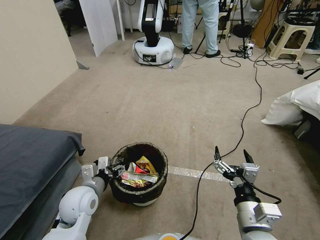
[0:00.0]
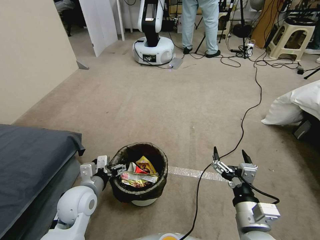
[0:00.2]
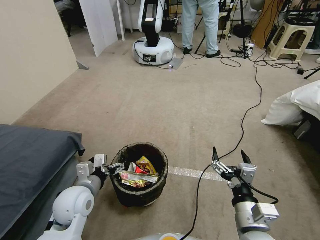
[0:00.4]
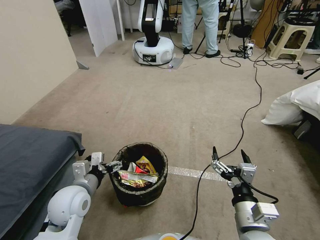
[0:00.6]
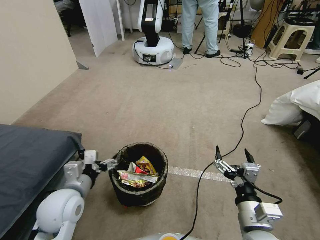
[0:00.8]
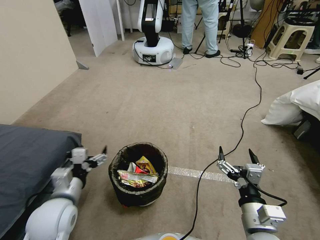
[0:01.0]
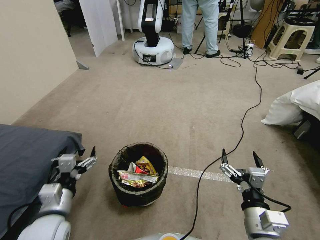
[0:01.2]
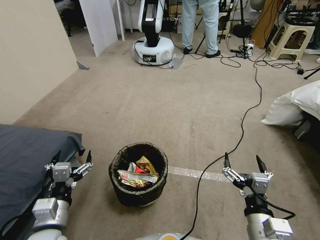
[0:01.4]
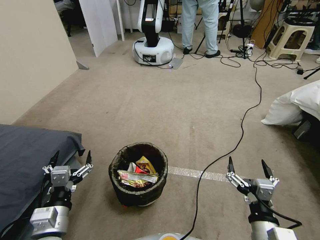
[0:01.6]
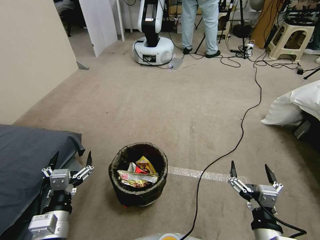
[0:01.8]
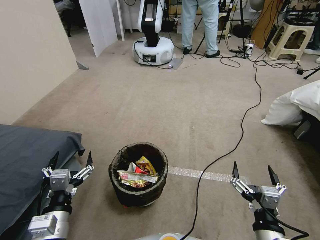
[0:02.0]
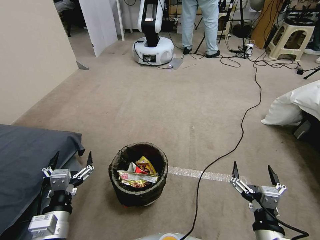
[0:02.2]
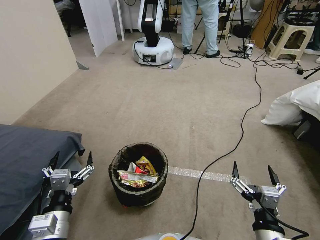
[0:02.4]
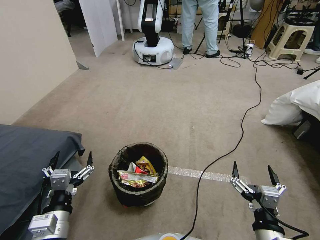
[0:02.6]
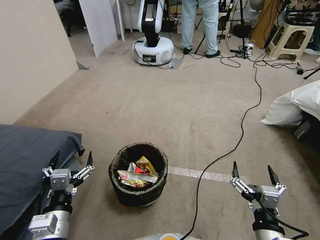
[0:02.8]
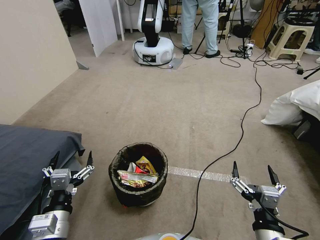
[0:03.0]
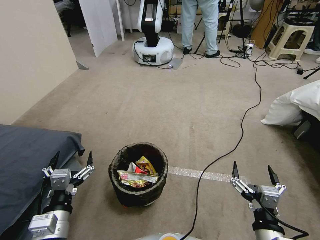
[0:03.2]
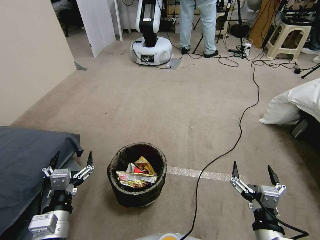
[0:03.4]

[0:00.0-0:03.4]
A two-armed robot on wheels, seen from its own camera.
Task of the whole recording: Pick up the trash bin, then pick up the garbage from the floor and place it into the trash bin.
0:00.0 to 0:01.6: The left gripper shifts approximately 15 cm backward.
0:01.6 to 0:03.4: Neither gripper changes place.
